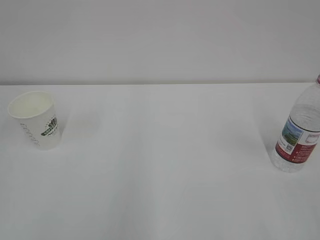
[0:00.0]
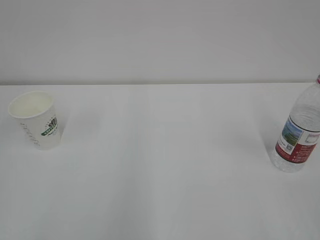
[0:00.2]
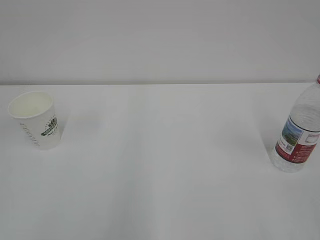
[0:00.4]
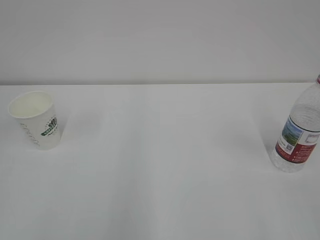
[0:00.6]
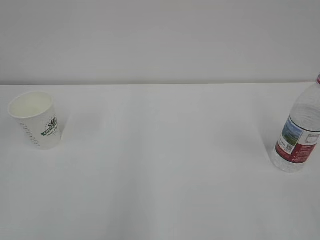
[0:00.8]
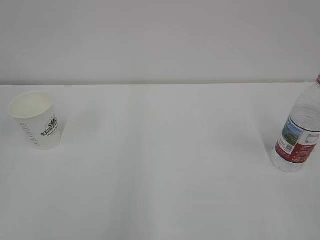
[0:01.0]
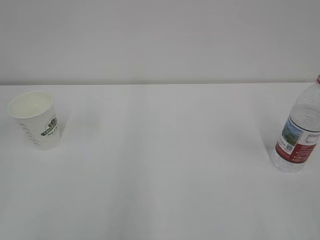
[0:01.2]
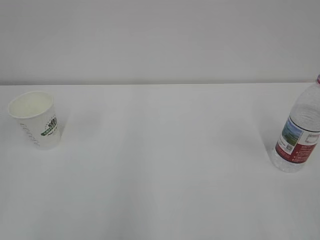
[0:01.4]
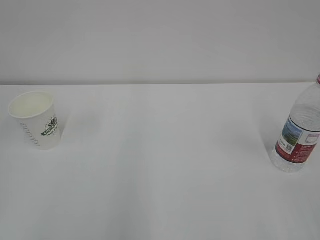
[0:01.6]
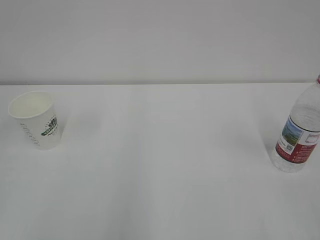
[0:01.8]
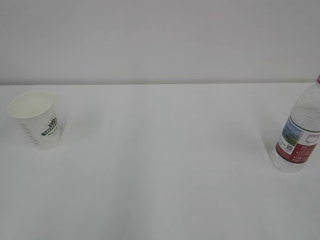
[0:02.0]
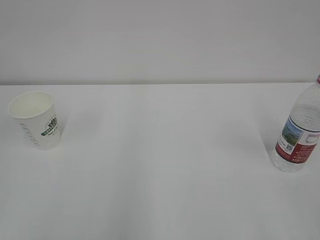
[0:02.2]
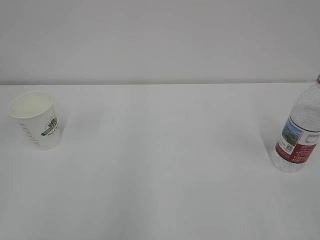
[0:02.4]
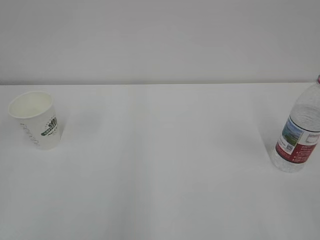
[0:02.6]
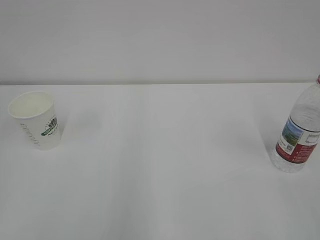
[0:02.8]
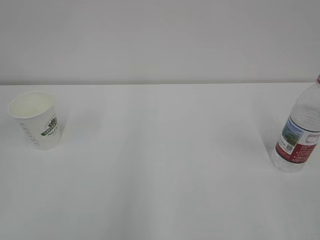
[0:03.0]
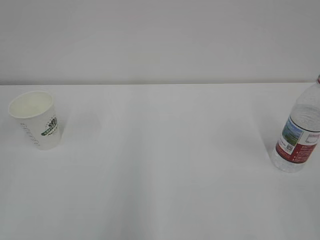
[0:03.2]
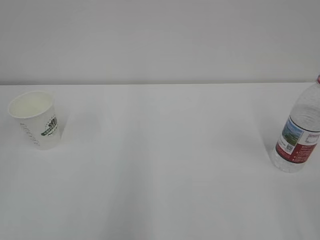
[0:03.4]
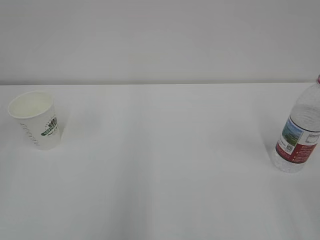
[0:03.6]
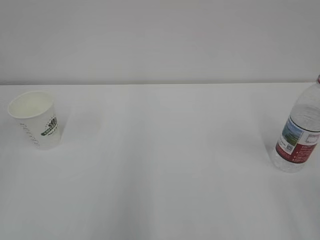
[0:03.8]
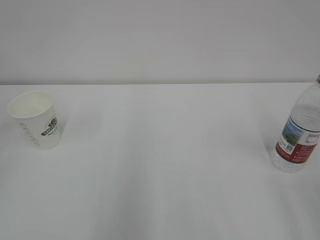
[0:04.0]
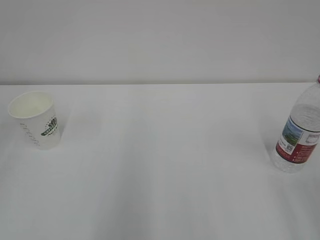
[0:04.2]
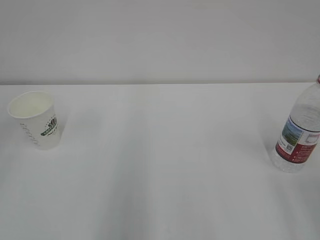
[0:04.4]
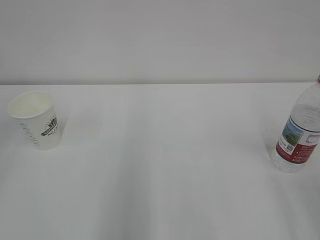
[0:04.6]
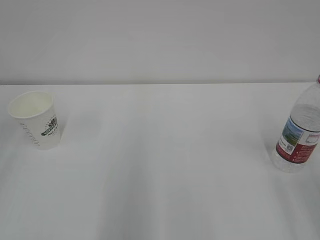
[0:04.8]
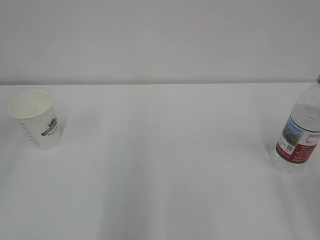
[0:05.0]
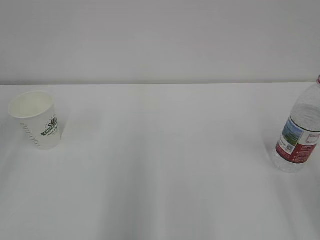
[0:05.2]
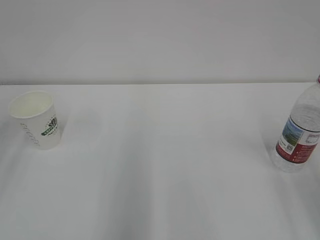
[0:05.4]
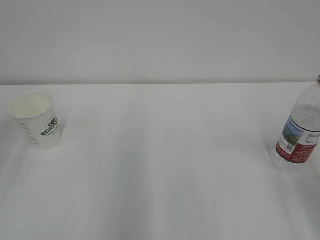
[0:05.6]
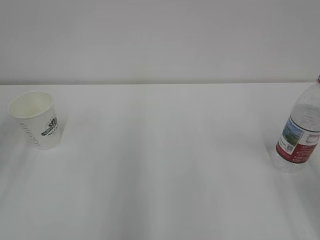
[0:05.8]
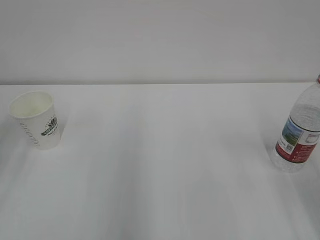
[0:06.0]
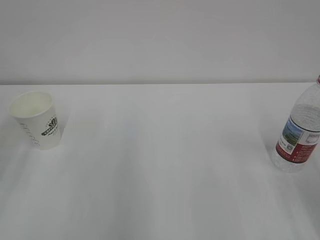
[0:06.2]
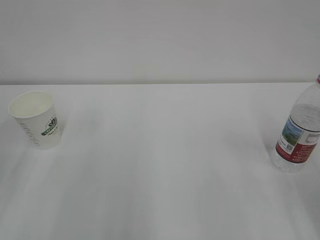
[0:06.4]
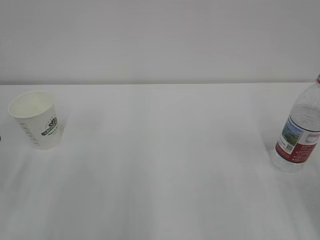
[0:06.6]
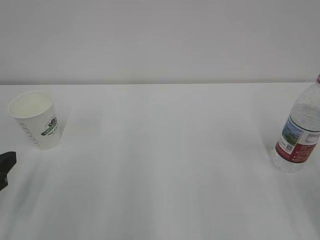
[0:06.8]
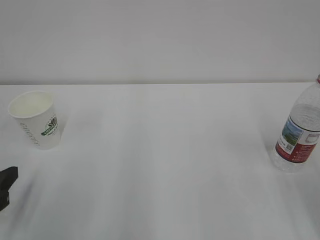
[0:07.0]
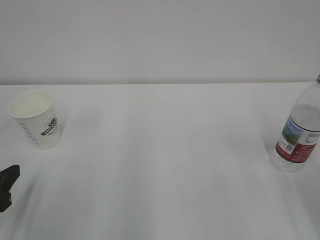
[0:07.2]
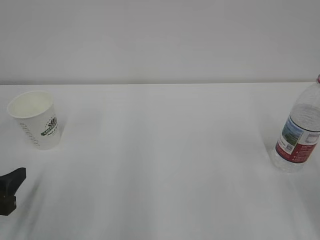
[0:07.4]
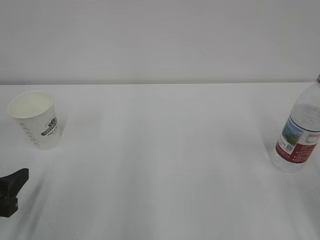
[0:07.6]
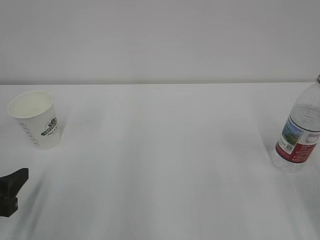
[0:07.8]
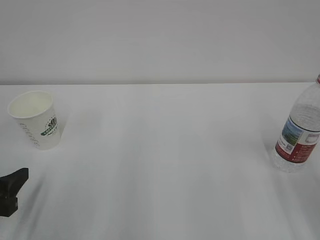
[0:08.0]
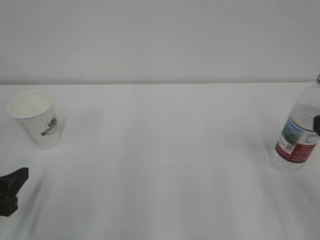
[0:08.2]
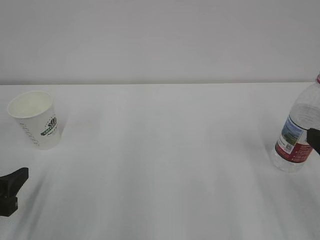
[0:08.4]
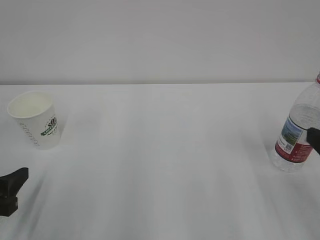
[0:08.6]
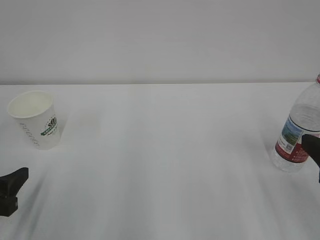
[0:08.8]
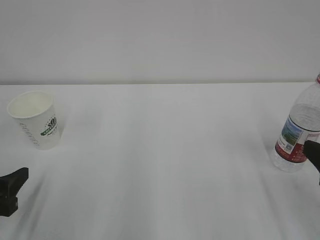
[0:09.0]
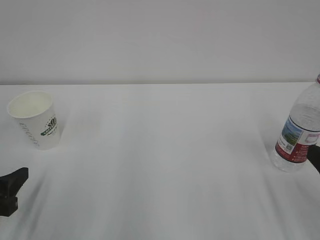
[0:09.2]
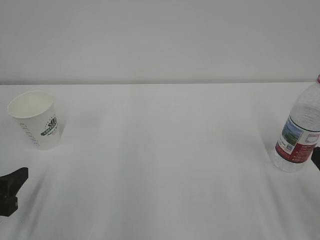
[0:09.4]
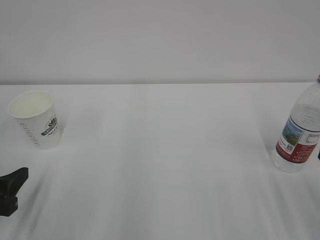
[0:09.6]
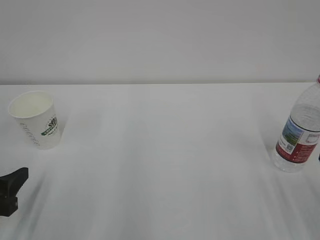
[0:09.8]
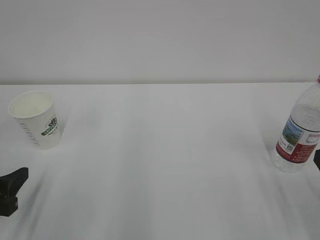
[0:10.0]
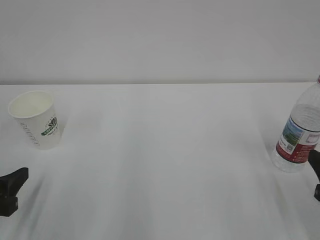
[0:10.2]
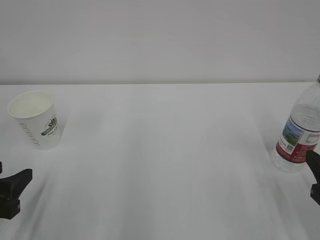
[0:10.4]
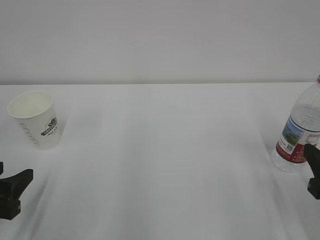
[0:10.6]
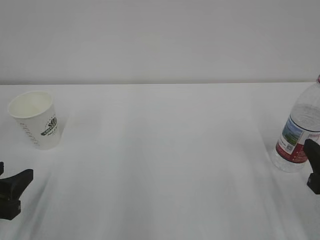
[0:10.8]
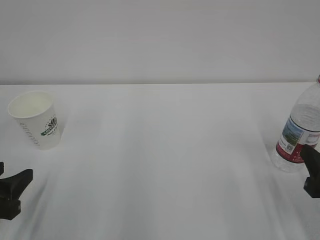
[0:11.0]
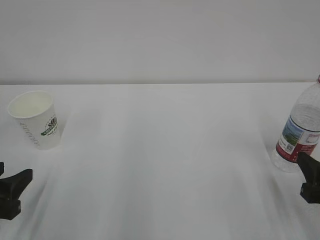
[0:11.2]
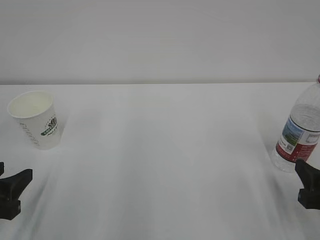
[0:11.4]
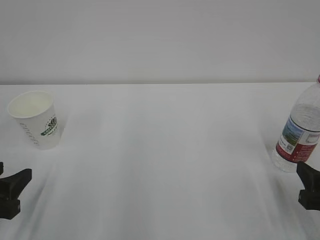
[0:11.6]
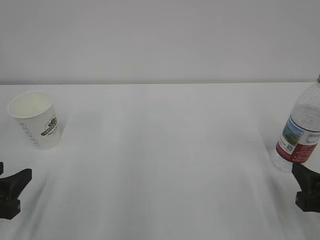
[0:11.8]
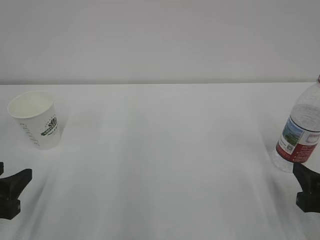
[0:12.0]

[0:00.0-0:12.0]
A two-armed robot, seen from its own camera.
0:01.6 to 0:03.0: Both grippers stay about where they are.
0:06.0 to 0:07.6: The left gripper travels downward and backward by approximately 15 cm.
0:09.0 to 0:10.4: The right gripper travels downward by some 5 cm.
0:10.4 to 0:12.0: The grippers make only small movements.

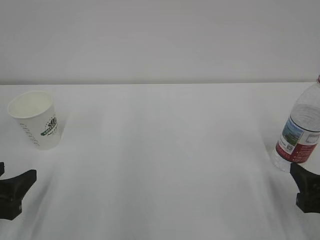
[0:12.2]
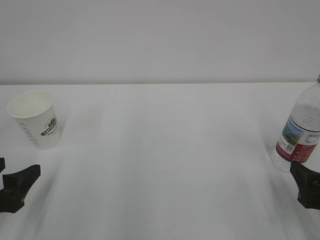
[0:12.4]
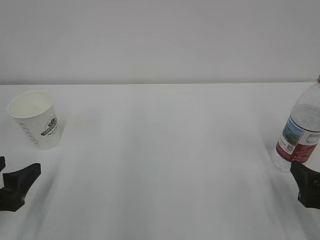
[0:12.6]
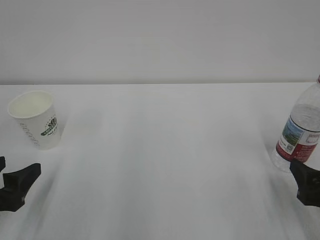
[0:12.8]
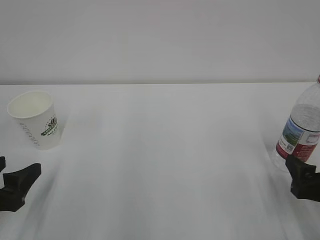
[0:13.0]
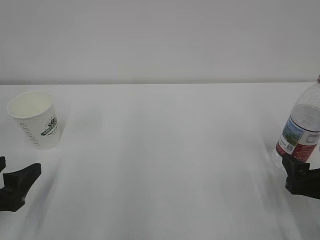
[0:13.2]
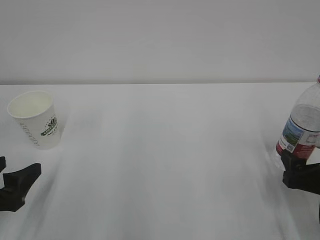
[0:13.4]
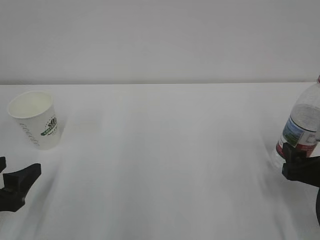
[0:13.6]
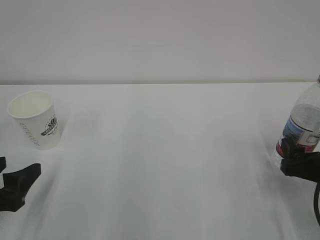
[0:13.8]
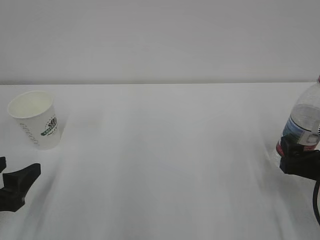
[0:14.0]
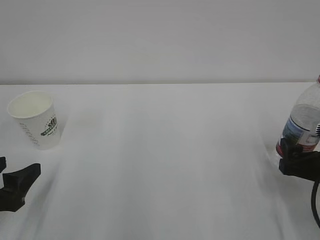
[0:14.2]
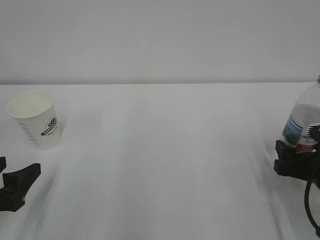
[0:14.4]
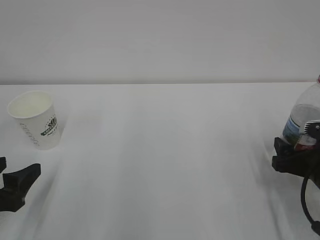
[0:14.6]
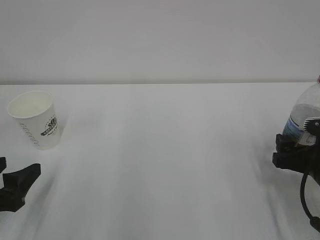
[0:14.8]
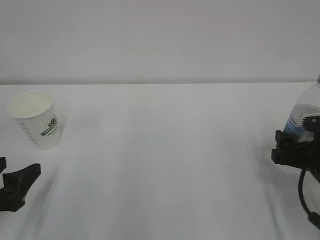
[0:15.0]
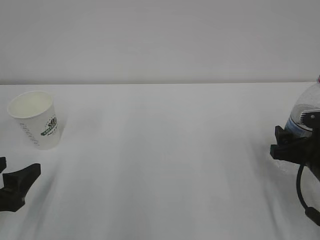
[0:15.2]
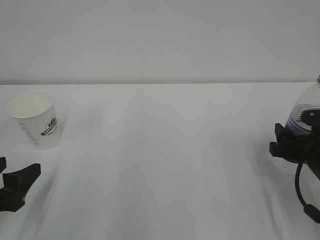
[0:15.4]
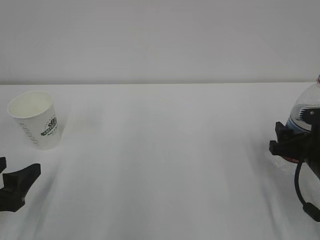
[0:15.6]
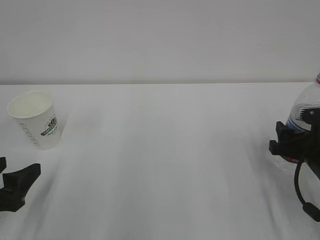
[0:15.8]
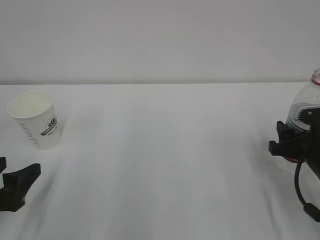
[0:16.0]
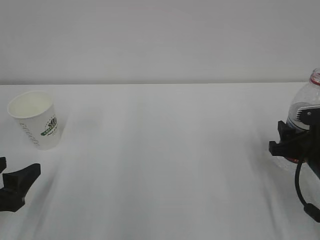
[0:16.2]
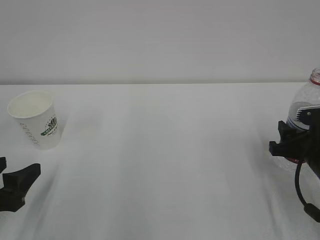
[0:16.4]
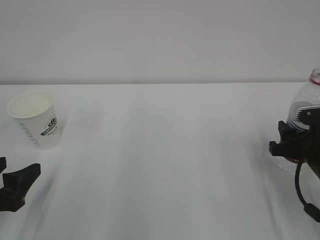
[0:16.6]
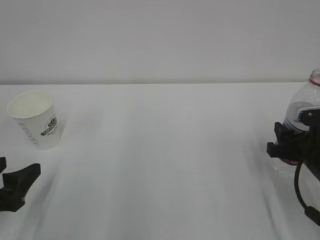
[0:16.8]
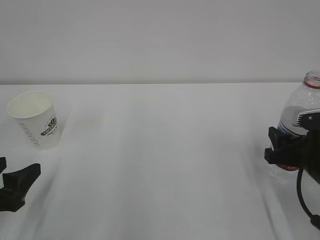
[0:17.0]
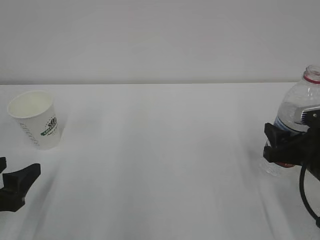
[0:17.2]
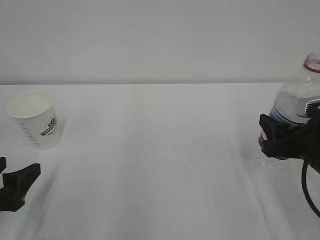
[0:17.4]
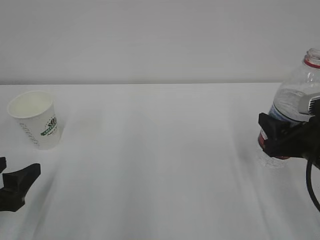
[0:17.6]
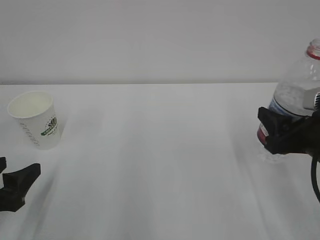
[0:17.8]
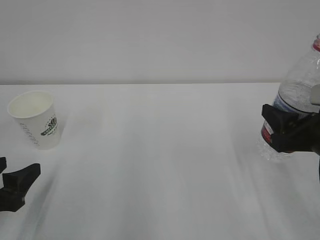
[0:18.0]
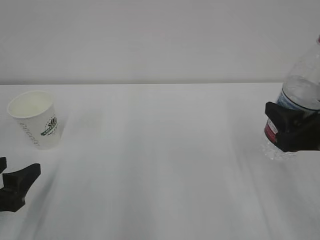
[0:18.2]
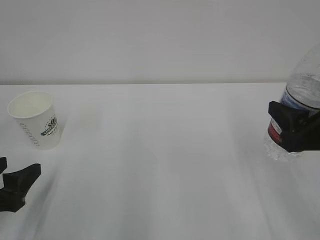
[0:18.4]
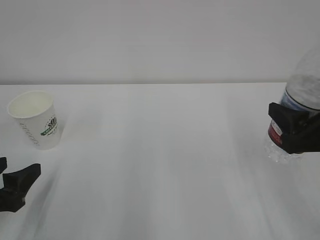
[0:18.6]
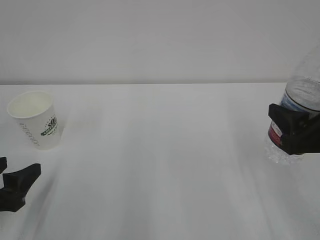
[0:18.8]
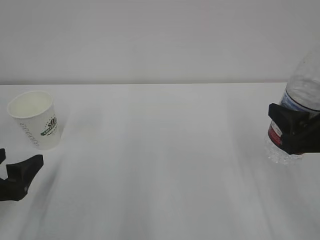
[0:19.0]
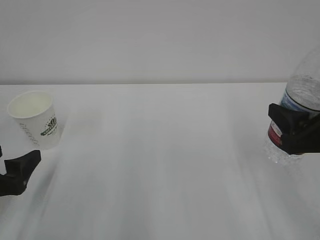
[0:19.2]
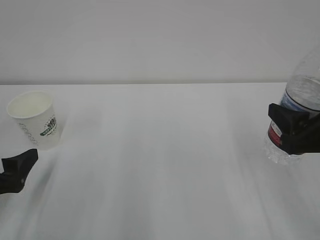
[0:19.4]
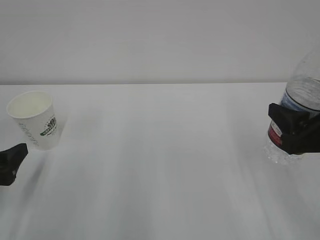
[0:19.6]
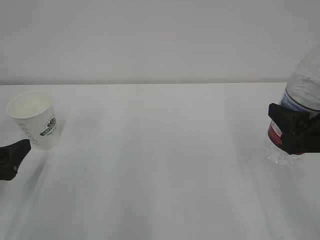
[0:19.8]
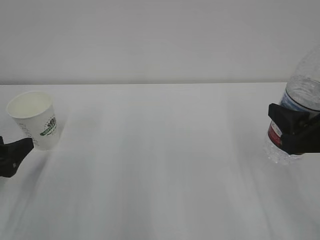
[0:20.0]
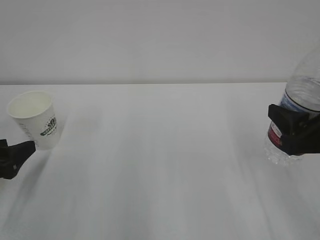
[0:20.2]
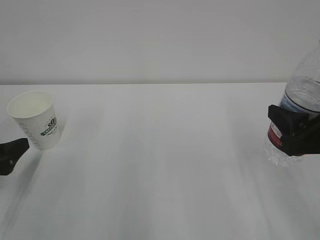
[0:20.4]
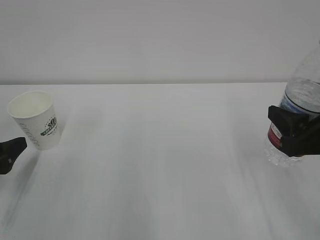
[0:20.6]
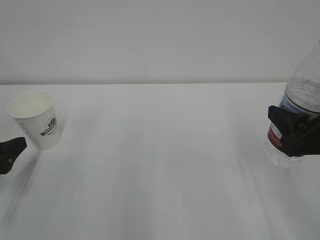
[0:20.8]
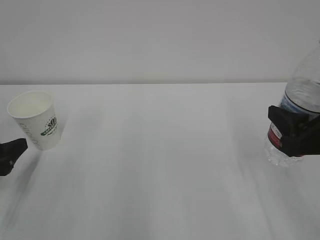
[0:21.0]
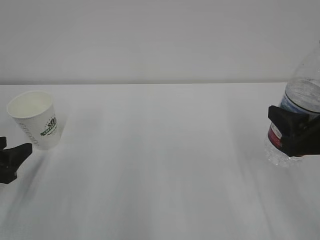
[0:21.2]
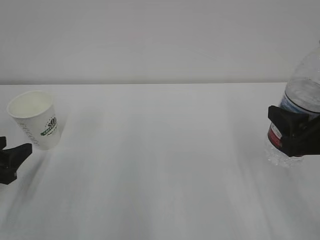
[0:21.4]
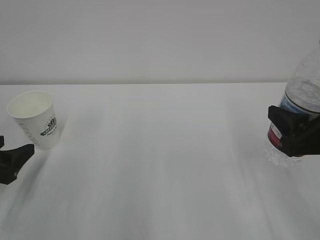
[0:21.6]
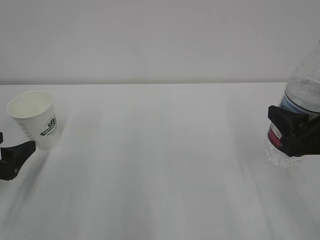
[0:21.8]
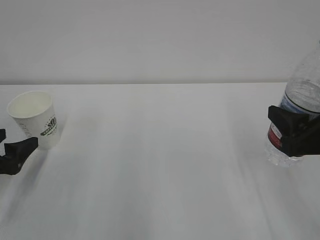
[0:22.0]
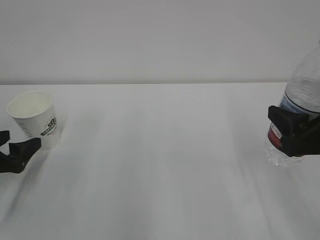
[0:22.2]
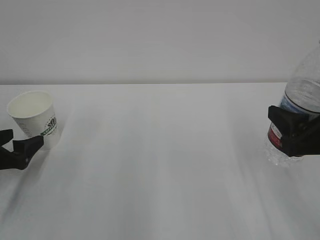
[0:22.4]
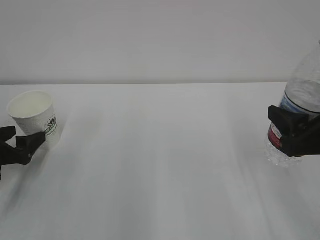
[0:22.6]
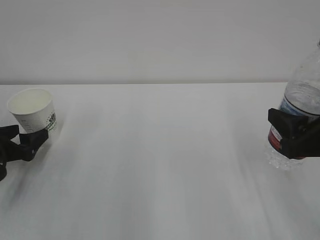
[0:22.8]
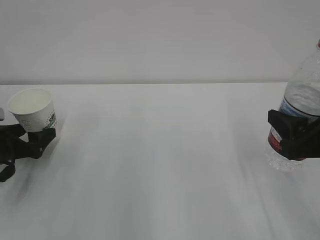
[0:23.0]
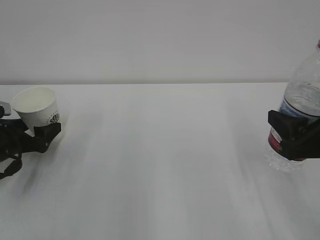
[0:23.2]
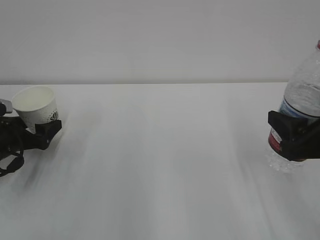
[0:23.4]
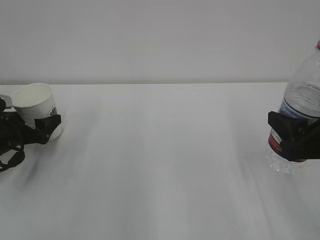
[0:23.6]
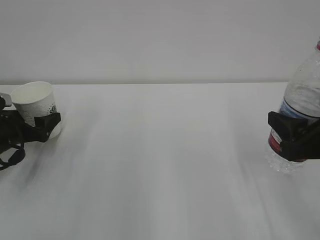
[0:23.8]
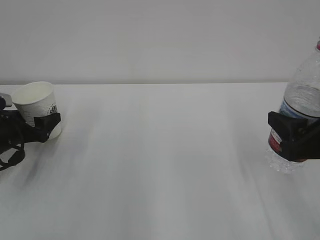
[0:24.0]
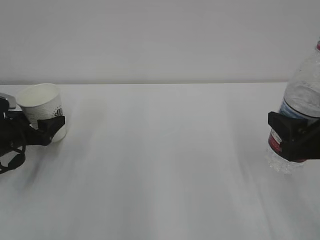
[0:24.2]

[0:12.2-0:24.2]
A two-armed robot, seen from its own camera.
0:12.2 to 0:13.8: The right gripper goes about 5 cm forward, and opens its fingers.
0:13.8 to 0:15.2: The grippers stay close to where they were, moving slightly.
0:15.2 to 0:16.6: The right gripper closes.
0:16.6 to 0:18.2: The right gripper shifts approximately 10 cm upward.
0:18.2 to 0:19.8: There are only small adjustments of the grippers.
0:21.2 to 0:22.6: The left gripper heads forward, covering approximately 5 cm, and opens.
0:22.6 to 0:24.2: The left gripper heads forward, covering some 5 cm, and closes up.
